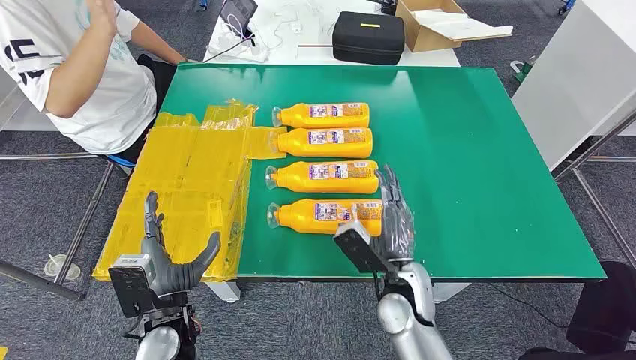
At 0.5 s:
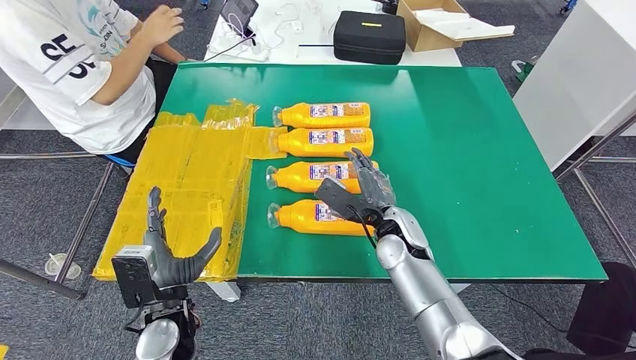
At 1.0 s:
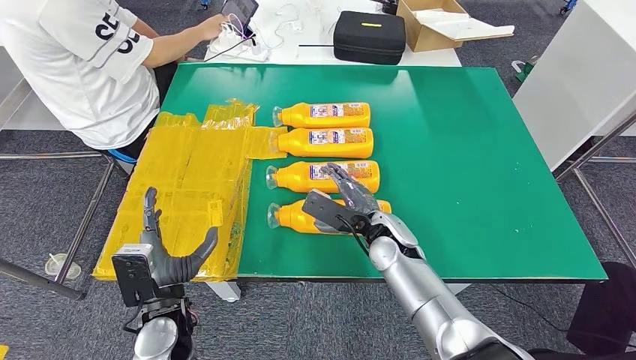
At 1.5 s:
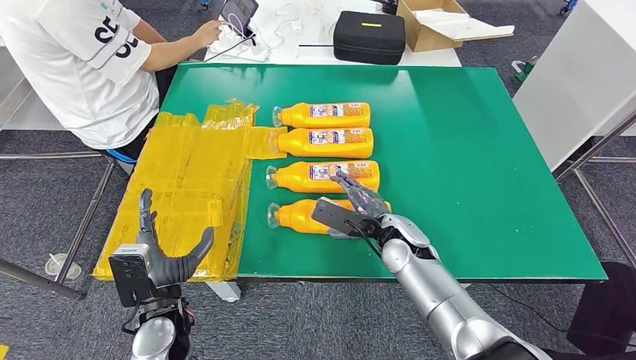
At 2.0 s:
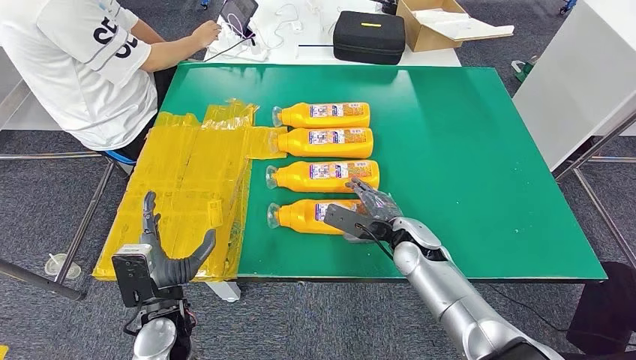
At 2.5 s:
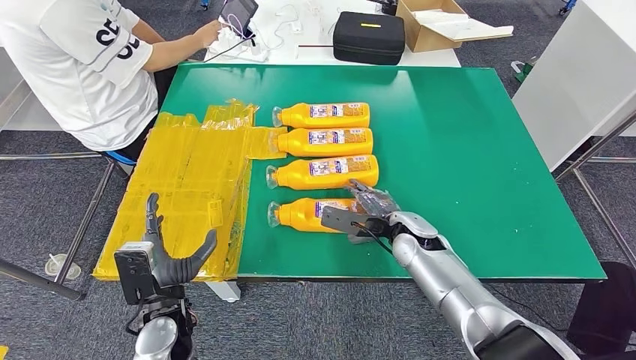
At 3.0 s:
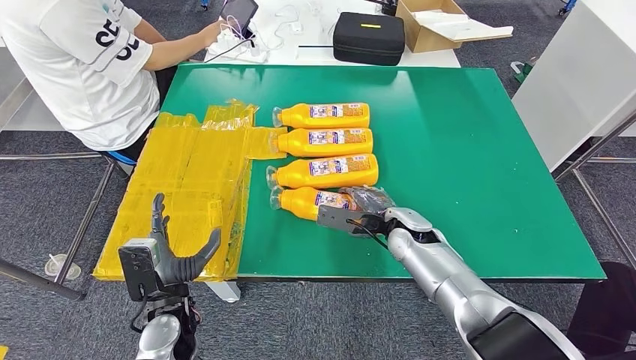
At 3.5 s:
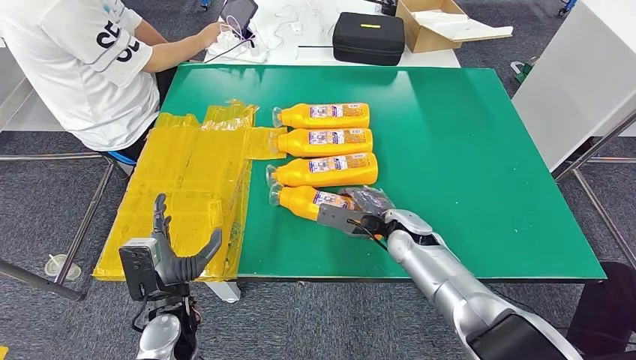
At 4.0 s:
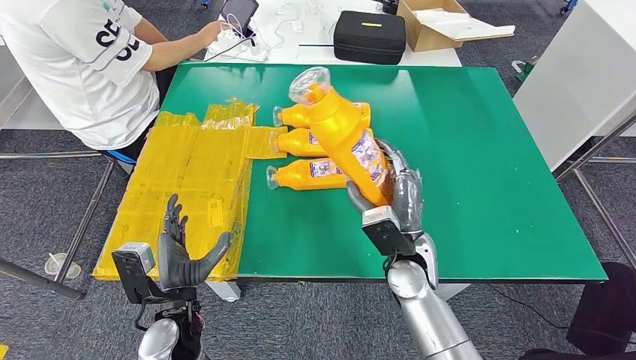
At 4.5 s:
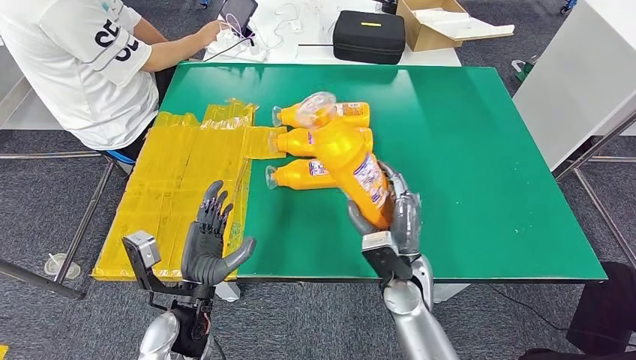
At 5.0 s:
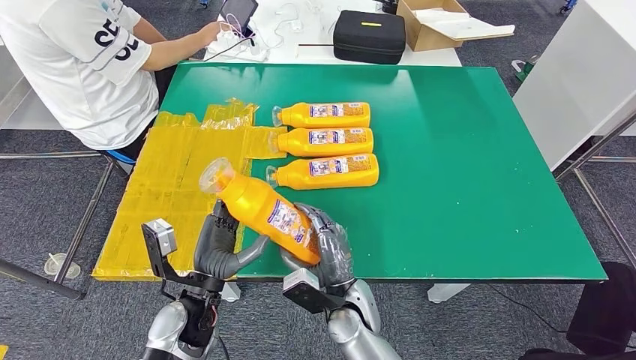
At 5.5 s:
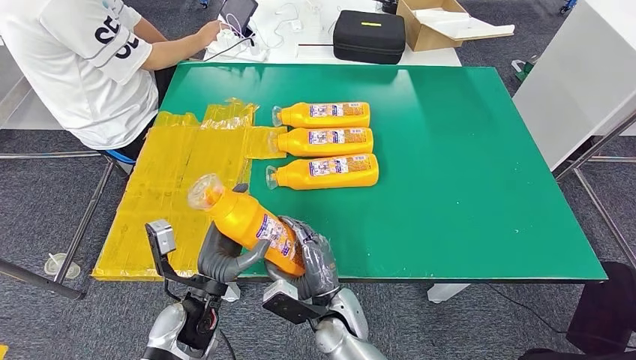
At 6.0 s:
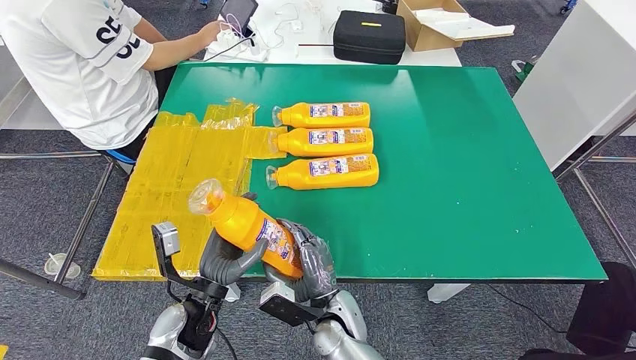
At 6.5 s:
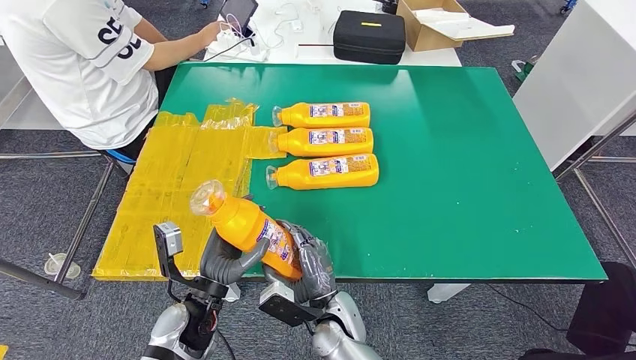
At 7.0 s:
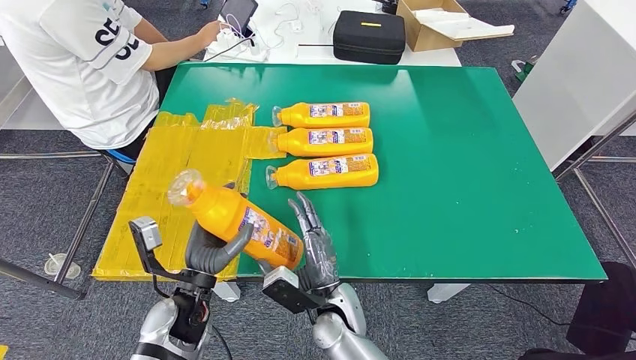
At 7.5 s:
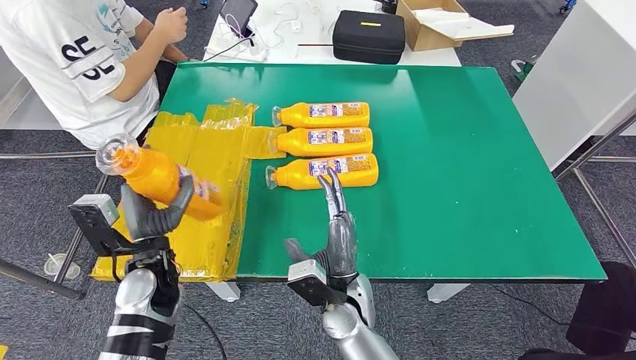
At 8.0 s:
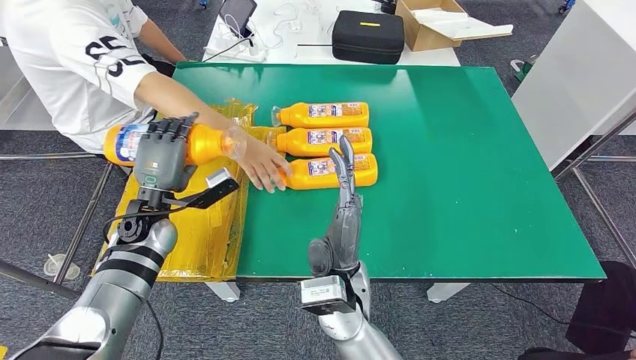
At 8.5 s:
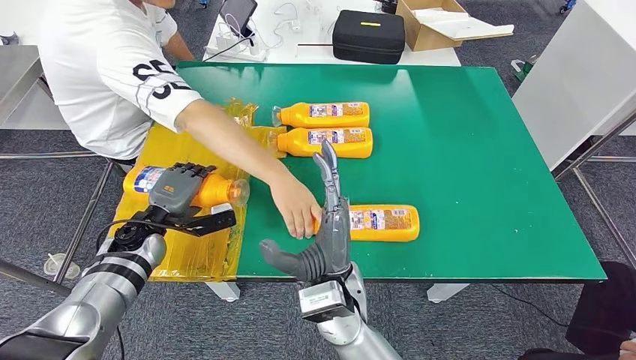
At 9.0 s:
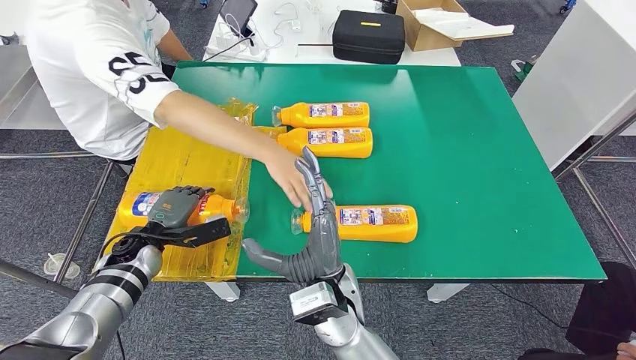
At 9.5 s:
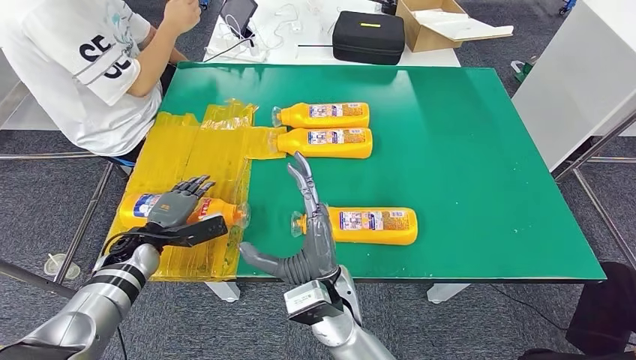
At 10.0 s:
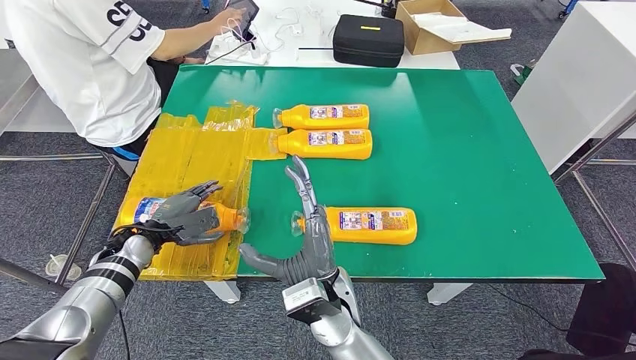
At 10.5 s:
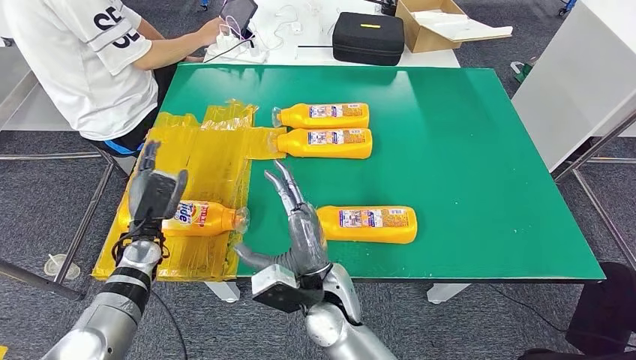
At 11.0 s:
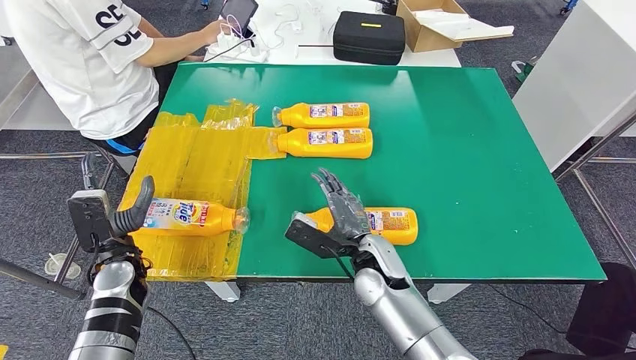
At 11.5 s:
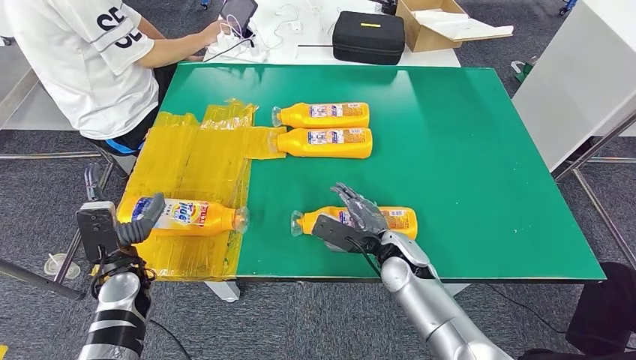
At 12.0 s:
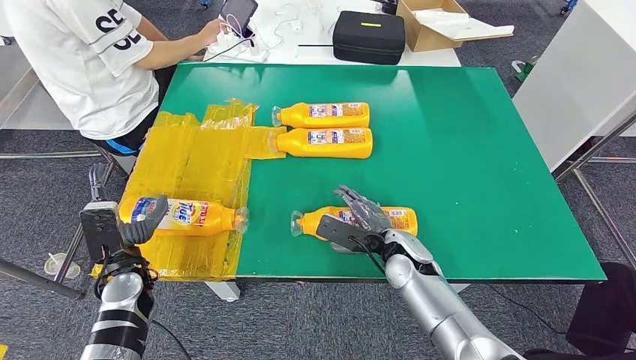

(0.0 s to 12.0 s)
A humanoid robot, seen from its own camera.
Step, 0.0 s - 6.0 s: Take the fast-moving consumer goods bottle from the table.
Step, 6.5 s - 12.0 s: Flip the fast-moving consumer goods bottle to the front side.
2.0 s - 4.0 s: The right hand changes place by about 5 cm.
4.0 s - 6.0 s: The right hand travels to the left, downward and backward by some 15 cm.

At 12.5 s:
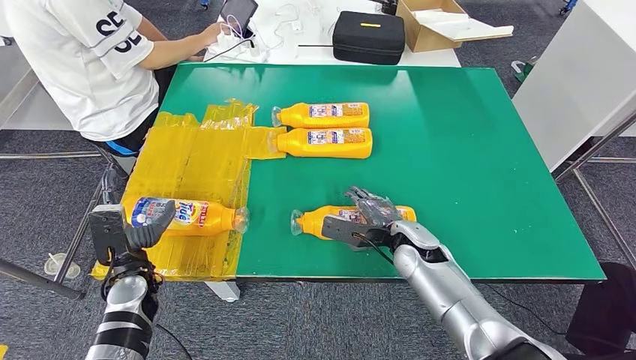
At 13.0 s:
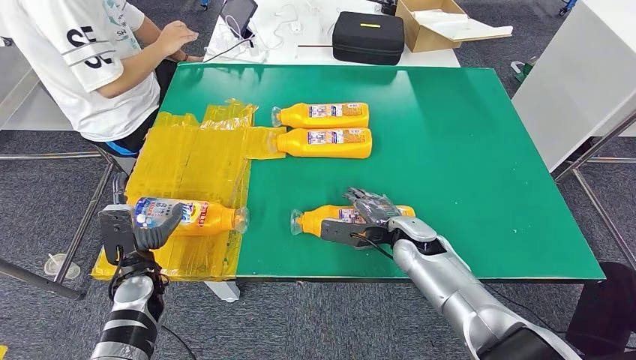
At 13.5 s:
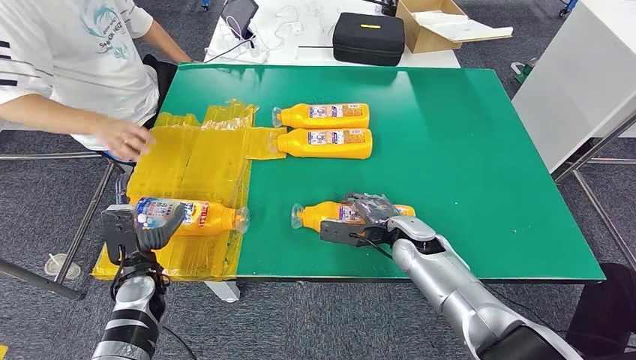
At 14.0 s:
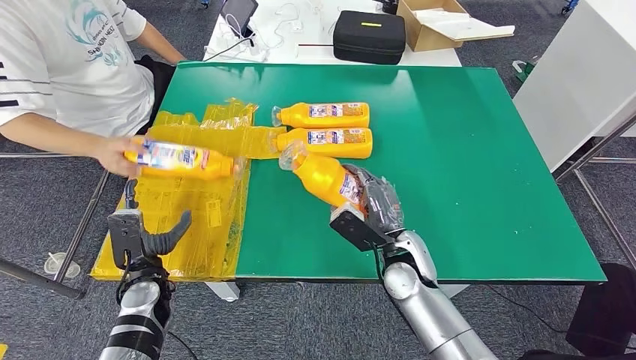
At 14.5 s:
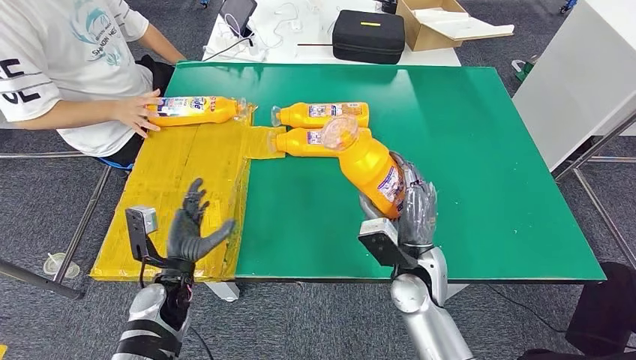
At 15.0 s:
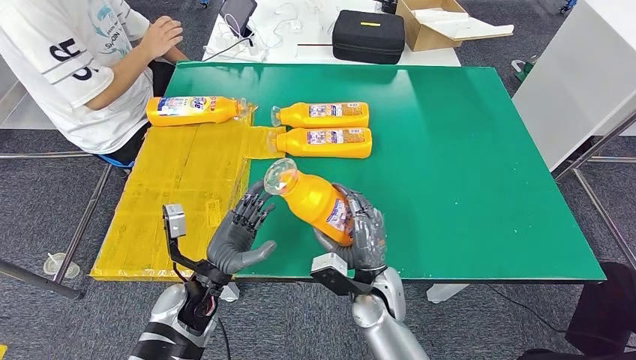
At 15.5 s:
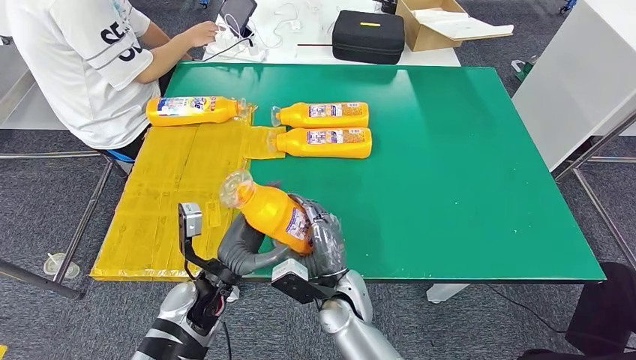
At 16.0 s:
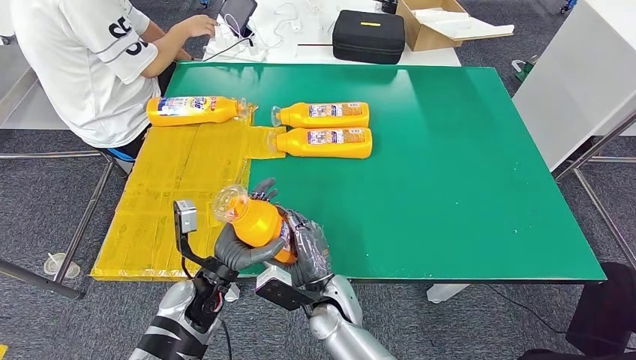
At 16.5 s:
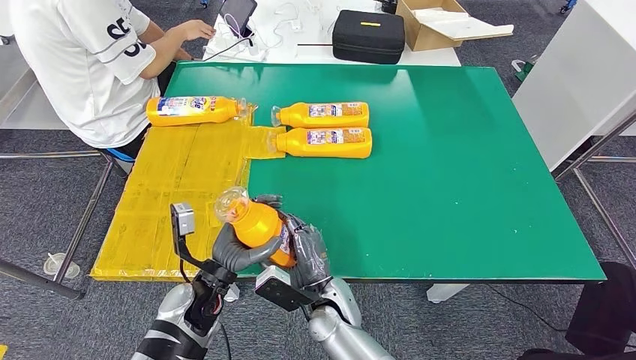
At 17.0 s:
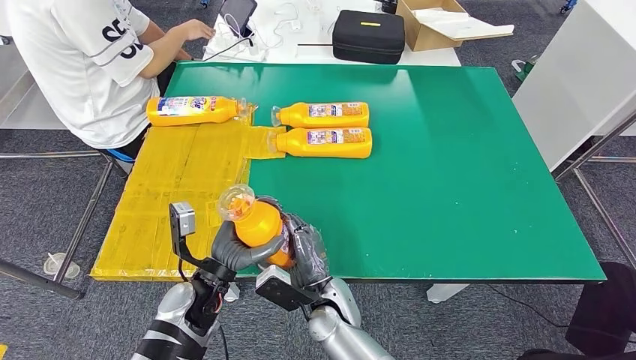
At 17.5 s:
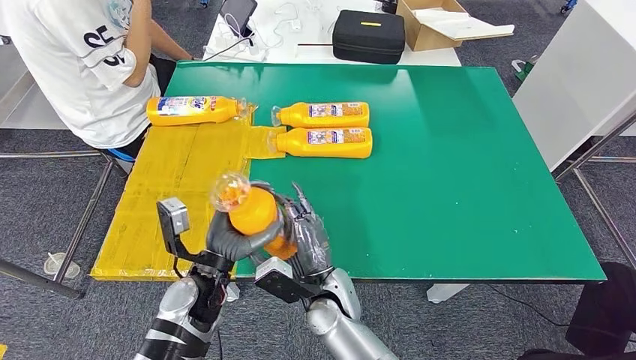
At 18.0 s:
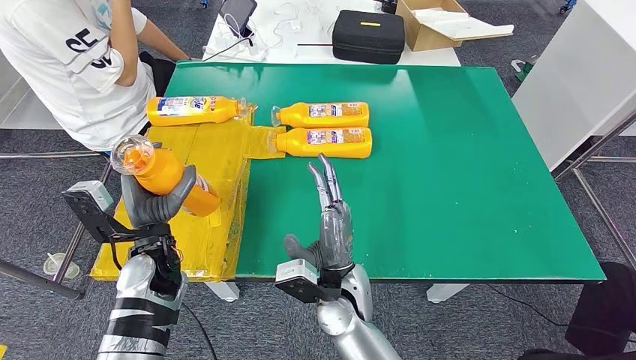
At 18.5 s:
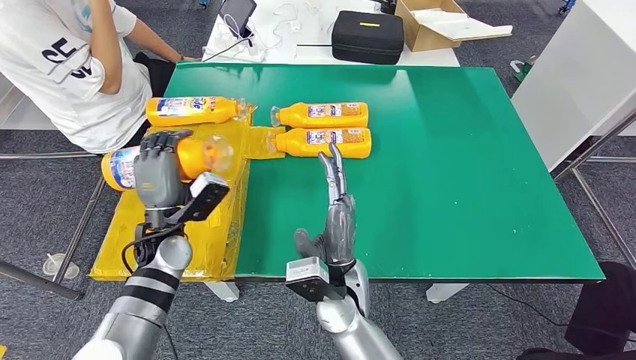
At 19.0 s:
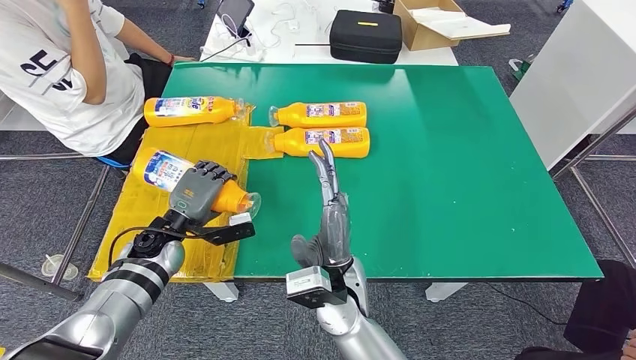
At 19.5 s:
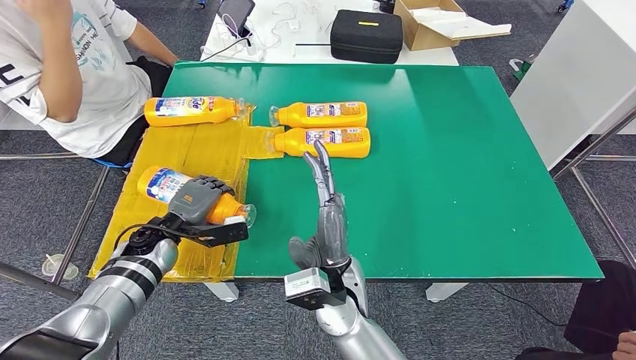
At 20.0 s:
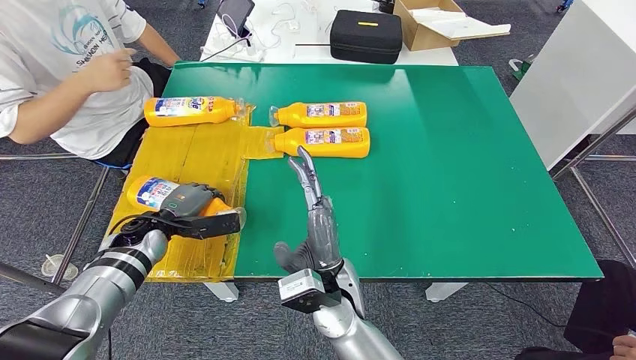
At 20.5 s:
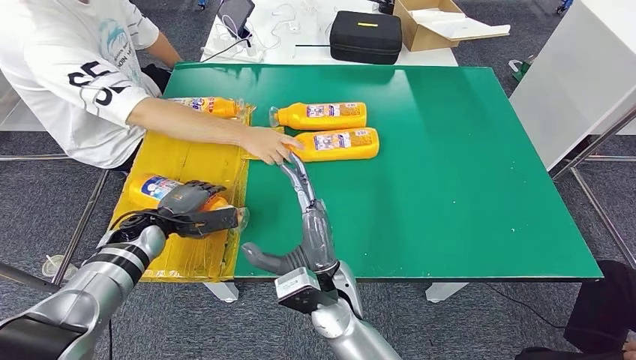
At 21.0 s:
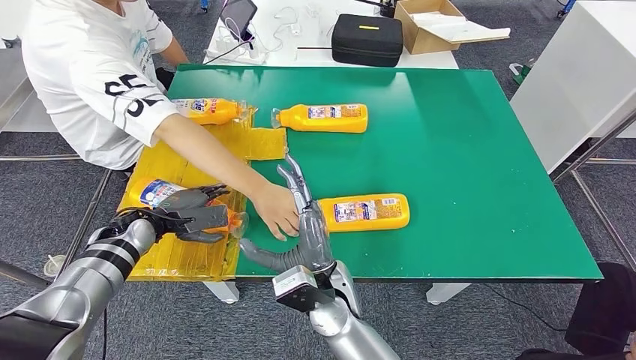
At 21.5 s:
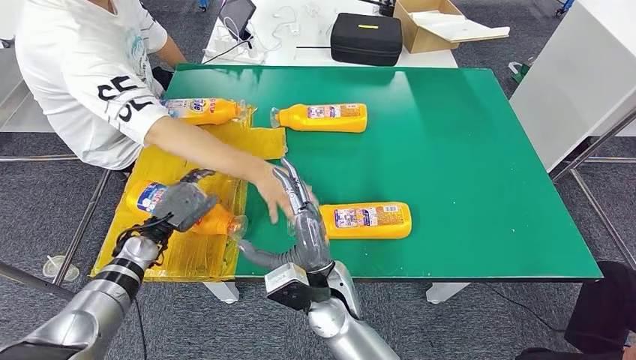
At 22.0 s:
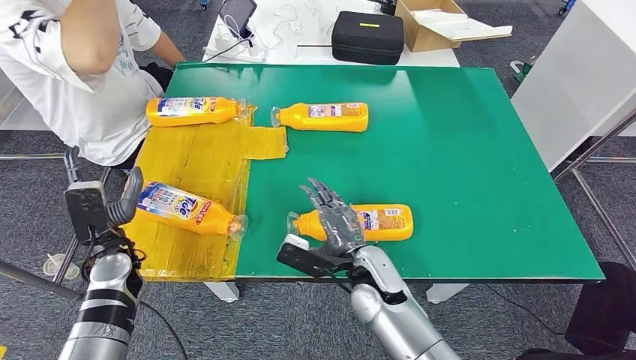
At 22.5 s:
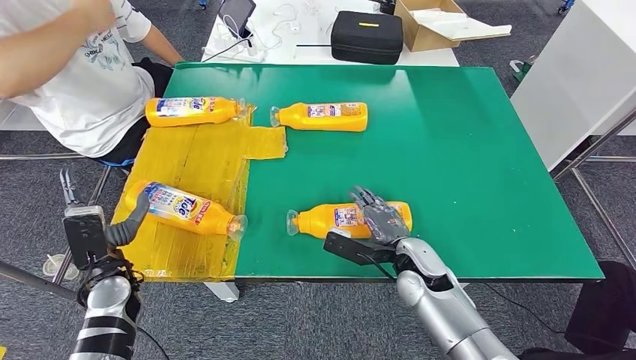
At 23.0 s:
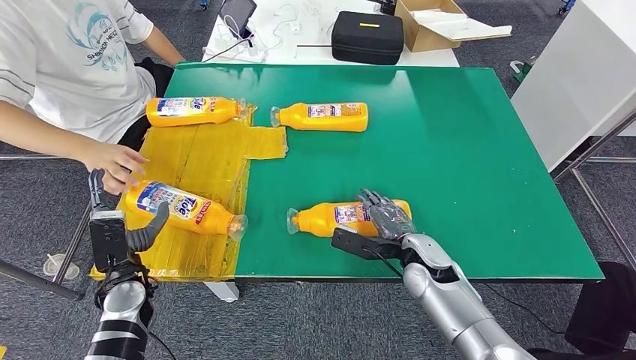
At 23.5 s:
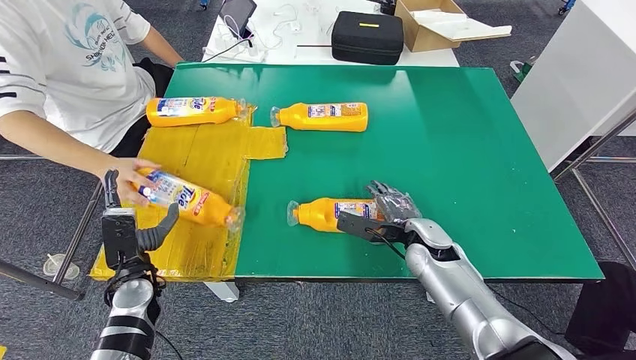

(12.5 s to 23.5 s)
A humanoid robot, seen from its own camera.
Step, 12.5 s - 16.0 s: Pick up the fast-moving consumer goods bottle from the table.
Step, 16.5 s - 23.0 s: Flip the fast-moving consumer goods bottle to the front side.
16.0 s - 18.0 s: The right hand is displaced upward by approximately 5 cm. The left hand is displaced to the left, upward and forward by approximately 10 cm.
